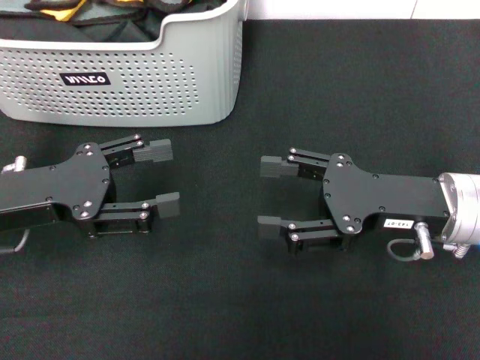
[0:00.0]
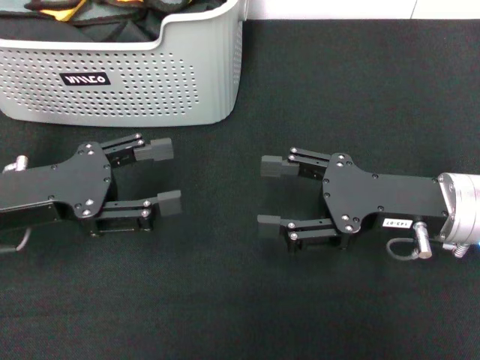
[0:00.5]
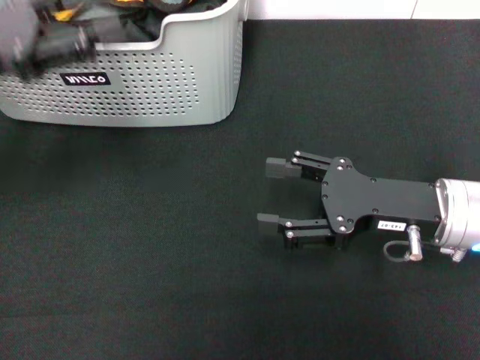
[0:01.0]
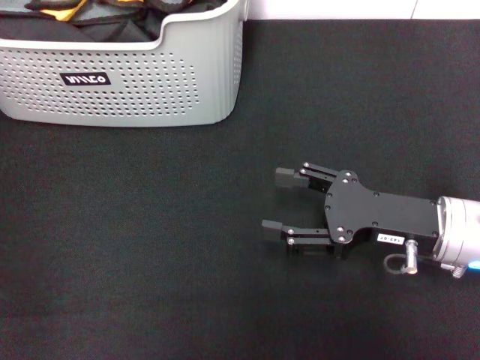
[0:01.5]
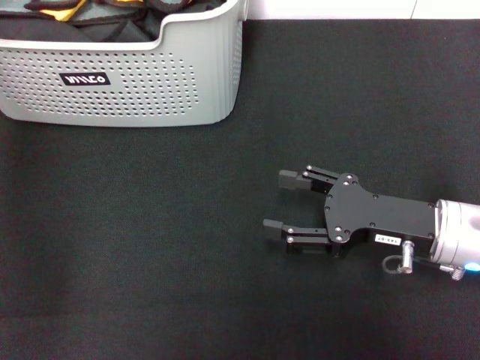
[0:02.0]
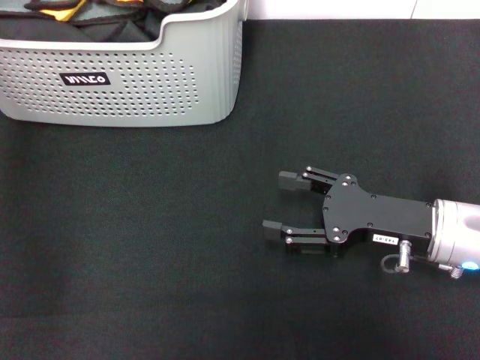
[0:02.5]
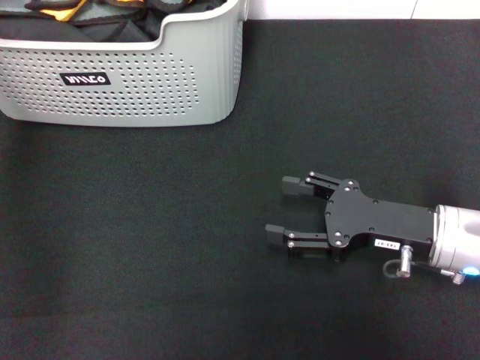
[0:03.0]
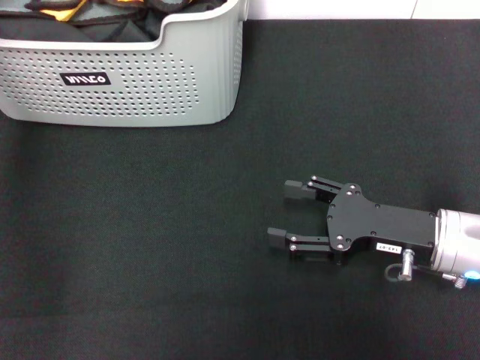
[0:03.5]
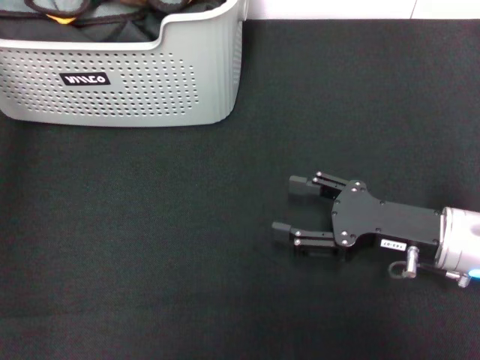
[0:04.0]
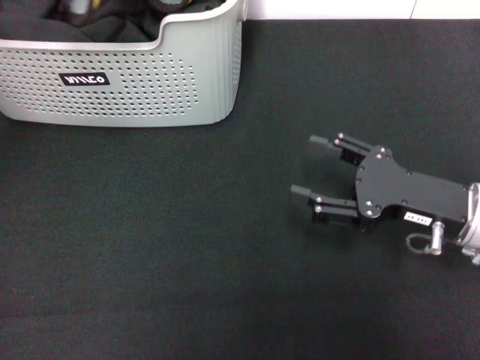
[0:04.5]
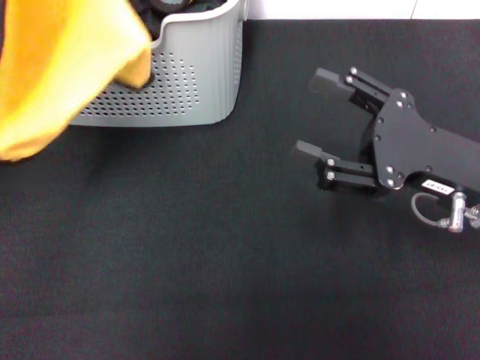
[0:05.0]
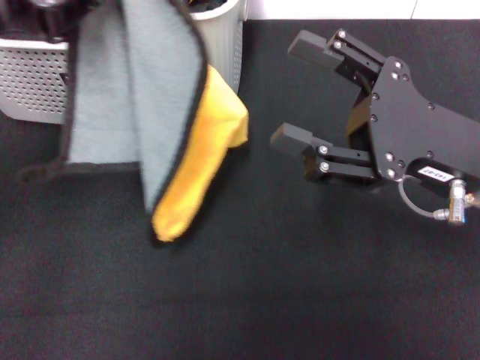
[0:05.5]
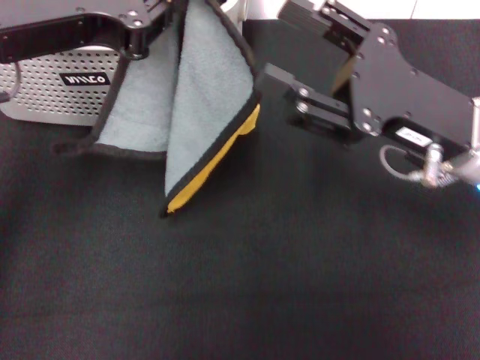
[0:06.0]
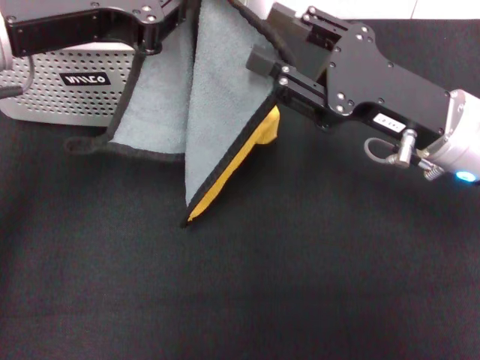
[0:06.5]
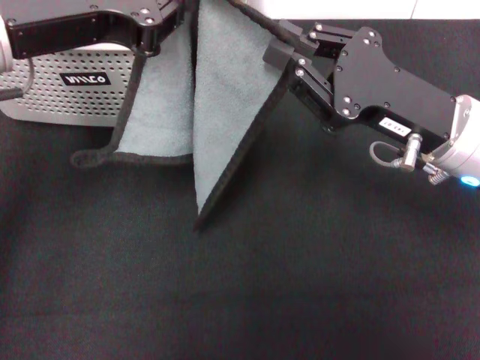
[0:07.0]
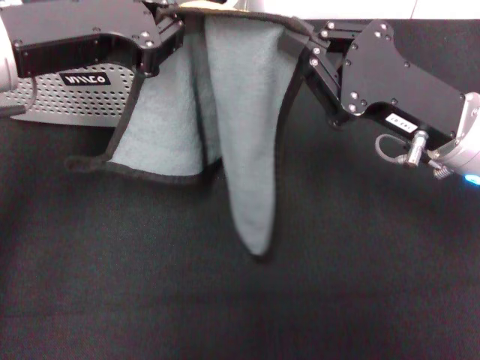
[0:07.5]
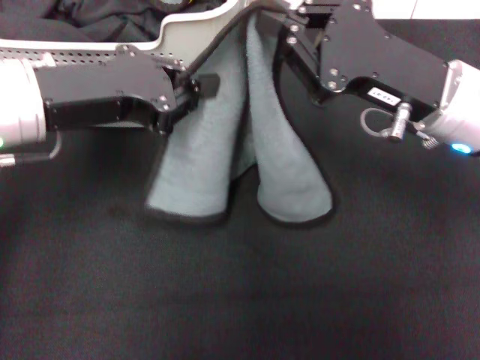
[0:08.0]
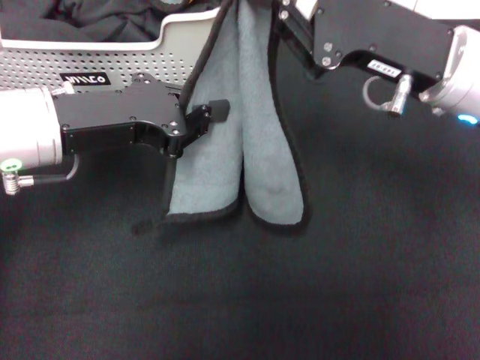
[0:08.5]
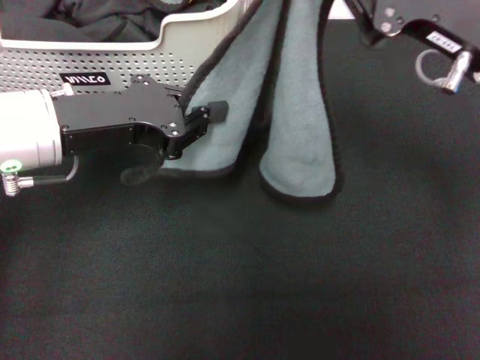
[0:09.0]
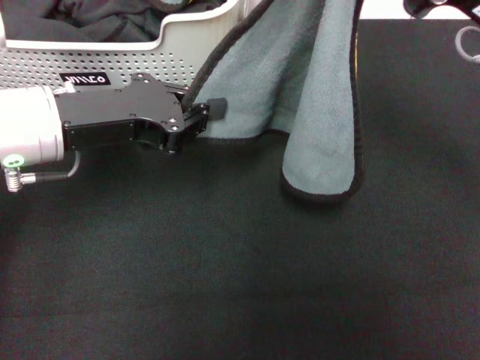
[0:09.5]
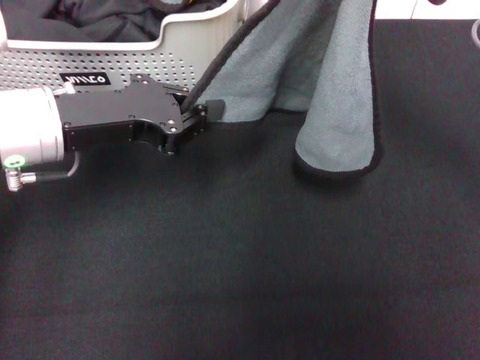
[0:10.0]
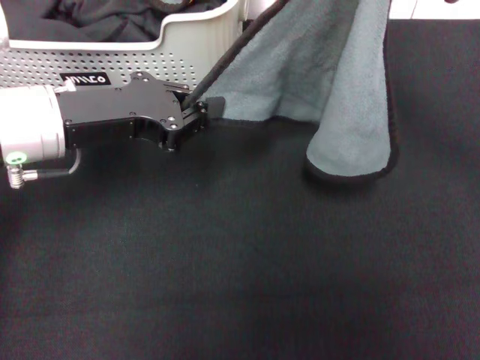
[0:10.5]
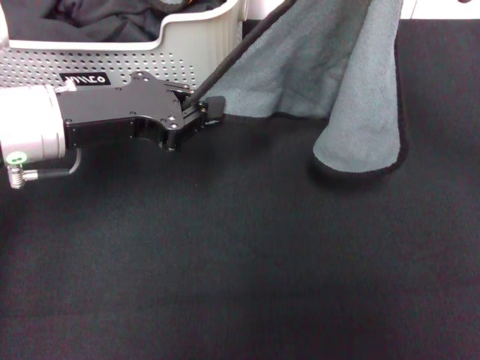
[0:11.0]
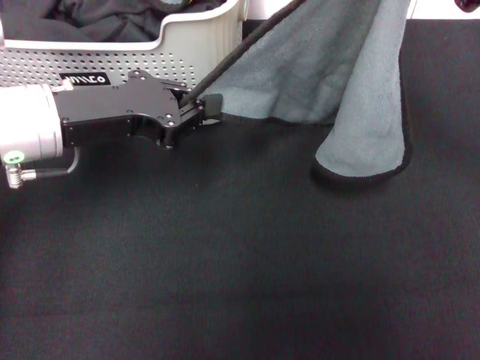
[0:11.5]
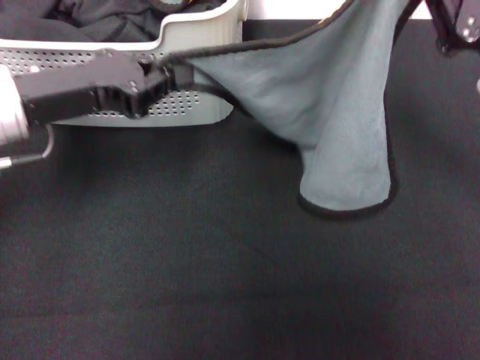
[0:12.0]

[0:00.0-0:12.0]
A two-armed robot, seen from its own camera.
Task of the whole recording: pick up the towel from the storage box and lay it flat on the black tablecloth.
Step, 0:00.0 to 0:03.5: Pick up a towel with the left gripper.
Step, 0:04.0 to 0:07.0: Spread the towel flat with the left gripper.
0:00.0 to 0:02.0: The left gripper goes roughly 25 cm forward and upward.
0:02.0 to 0:04.0: The left gripper changes place by roughly 5 cm, and closes its fingers.
0:04.0 to 0:06.0: The left gripper shifts about 15 cm backward and to the right; the right gripper is displaced upward by some 10 cm.
0:06.0 to 0:08.0: The left gripper travels downward by about 5 cm; the right gripper closes up.
0:08.0 to 0:10.0: The right gripper goes about 10 cm to the right and upward.
0:10.0 to 0:12.0: The right gripper moves about 5 cm.

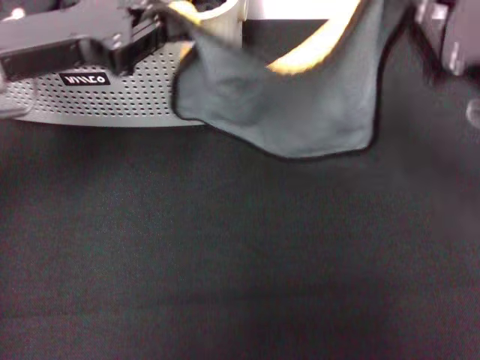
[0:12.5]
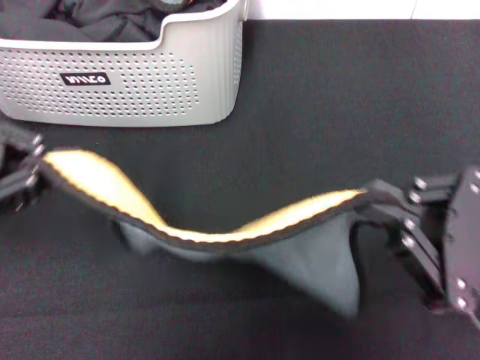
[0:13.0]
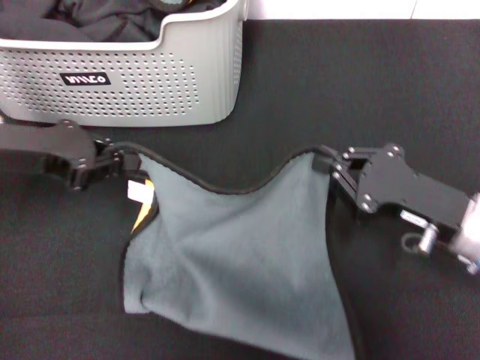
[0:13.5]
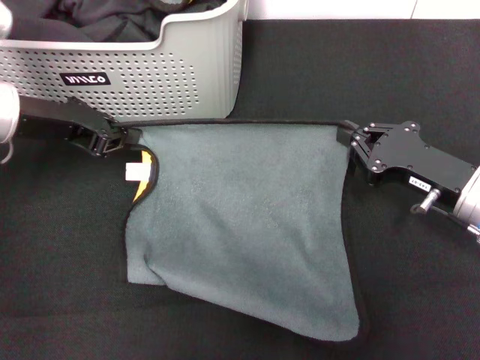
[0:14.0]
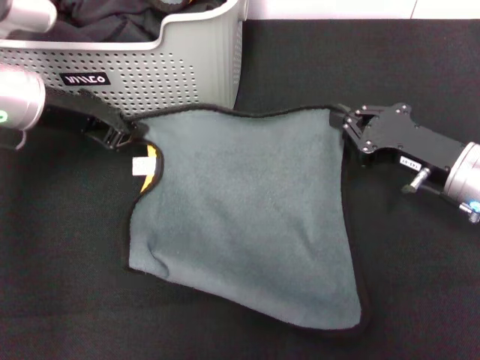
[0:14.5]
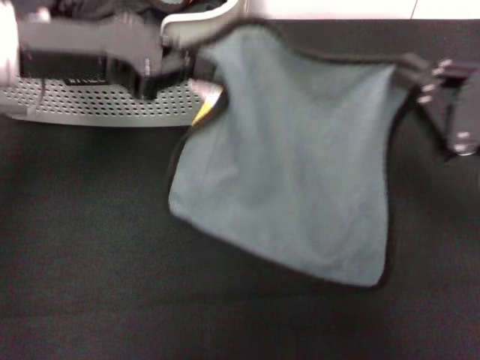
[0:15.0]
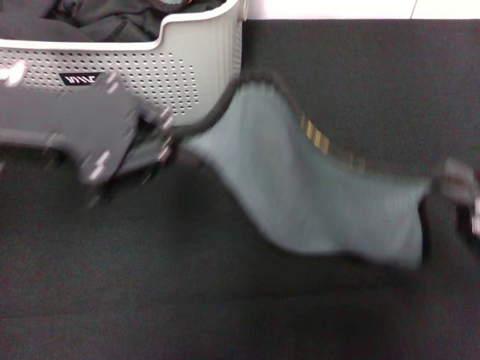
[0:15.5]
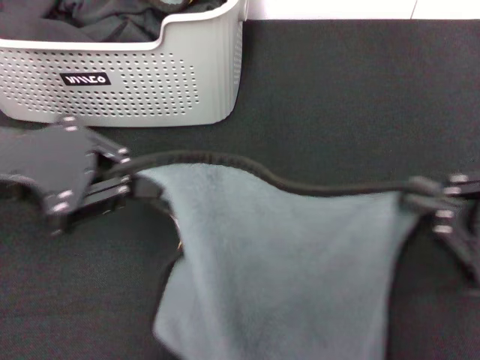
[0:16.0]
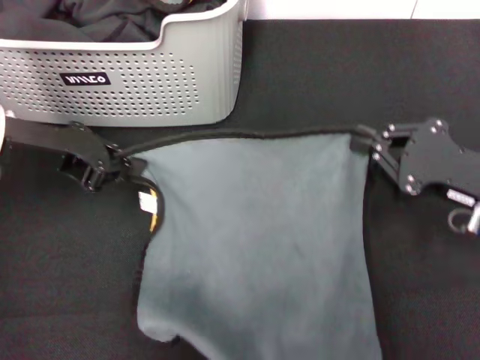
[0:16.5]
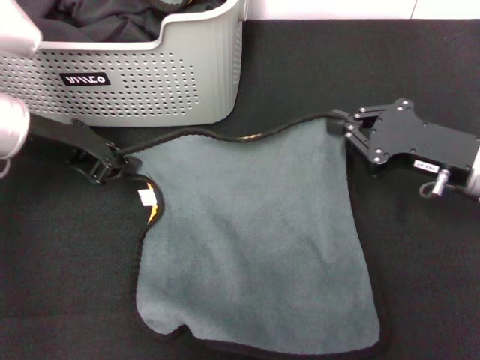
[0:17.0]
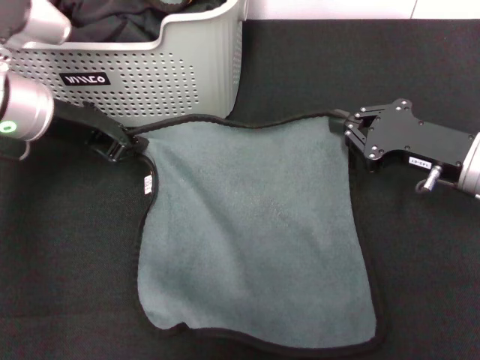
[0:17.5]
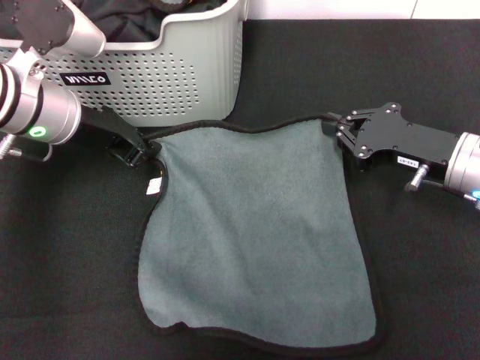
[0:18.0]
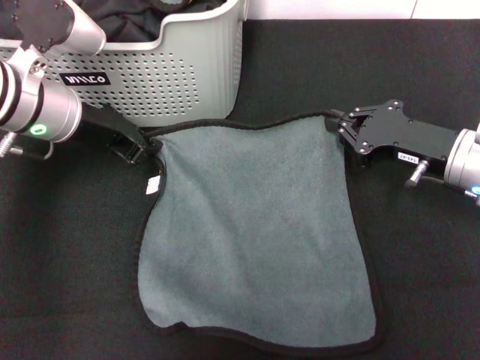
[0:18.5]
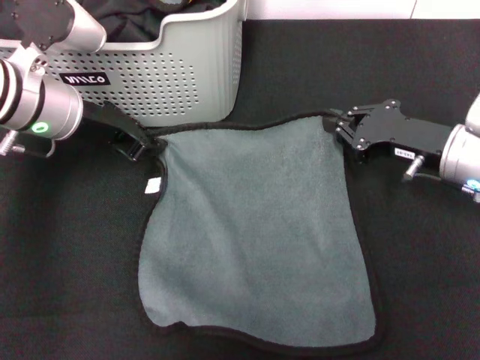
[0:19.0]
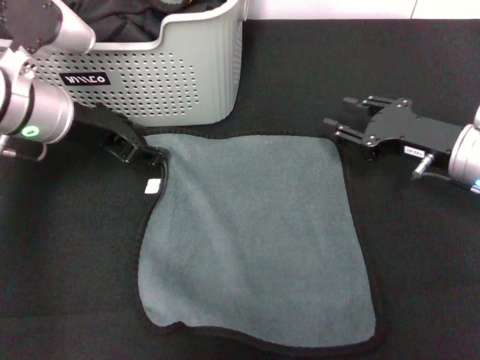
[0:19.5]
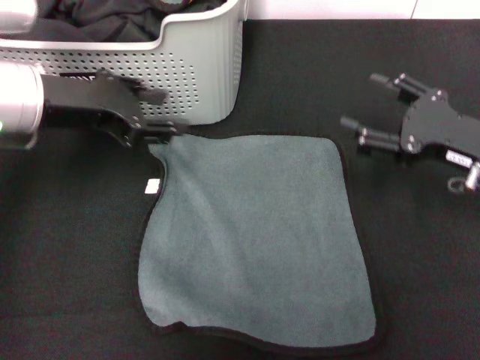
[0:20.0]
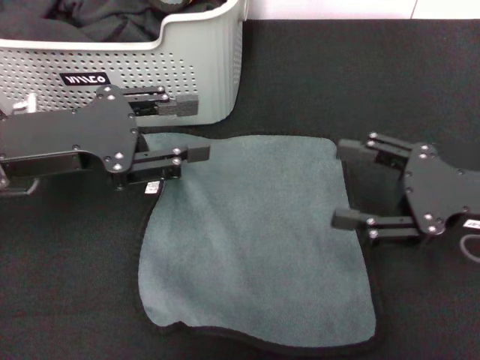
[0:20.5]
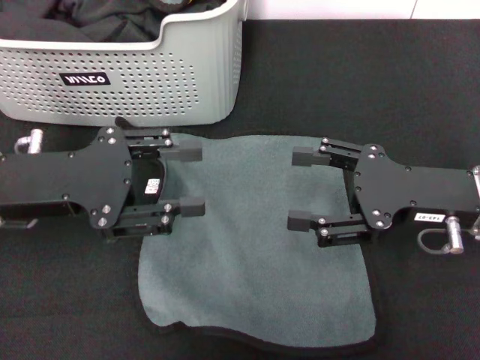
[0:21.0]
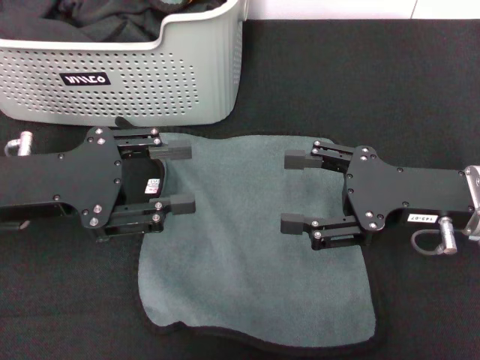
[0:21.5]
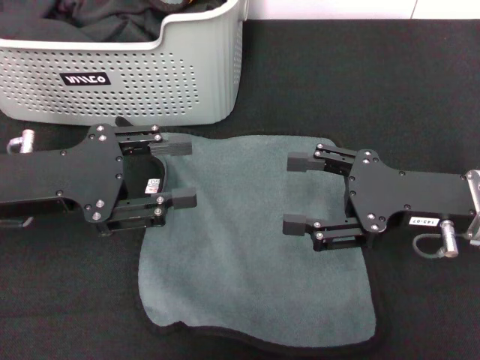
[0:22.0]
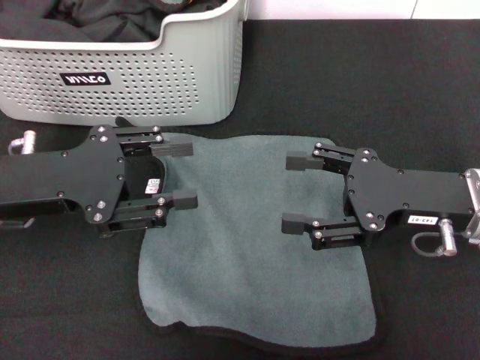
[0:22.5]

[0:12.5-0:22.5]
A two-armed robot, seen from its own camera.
Task of the whole recording: pick up the towel from the storage box and lay it flat on the black tablecloth.
Step, 0:12.5 to 0:19.5: Spread the towel flat with the right gripper.
0:12.5 to 0:14.5: The right gripper is displaced downward by some 10 cm, and travels backward and back again, some 10 cm each way. The left gripper is displaced downward by approximately 5 cm.
0:14.5 to 0:16.5: The left gripper travels backward by roughly 5 cm.
0:16.5 to 0:18.5: Both grippers travel together forward, approximately 5 cm.
0:18.5 to 0:20.5: The two grippers go roughly 10 cm backward. The right gripper opens its fingers. The left gripper opens its fingers.
0:20.5 to 0:22.5: The grippers move only a little.

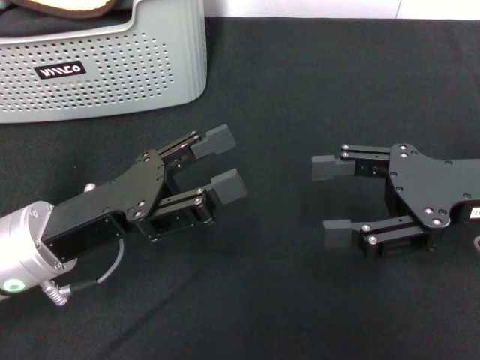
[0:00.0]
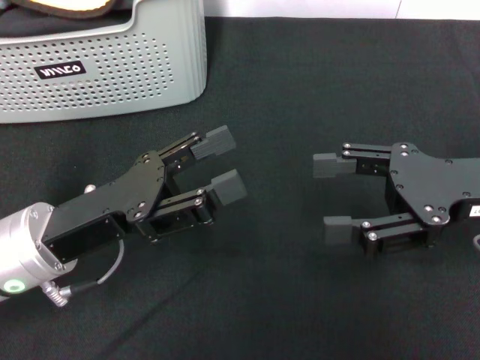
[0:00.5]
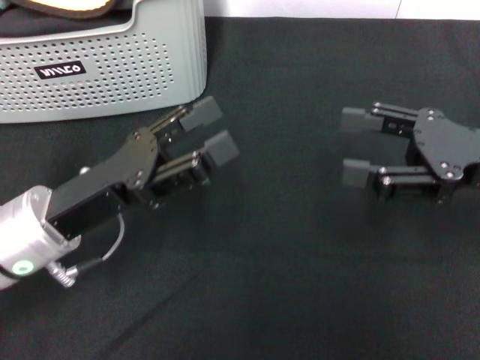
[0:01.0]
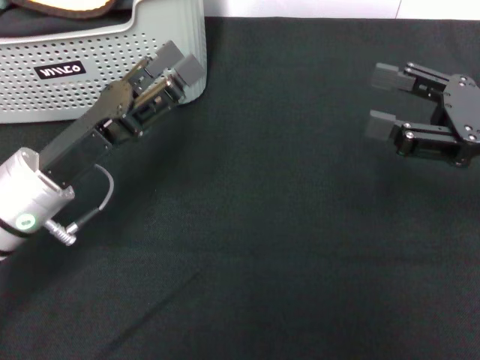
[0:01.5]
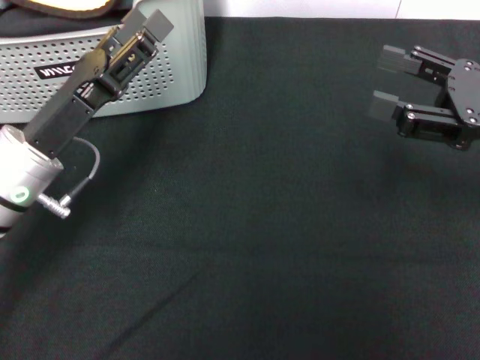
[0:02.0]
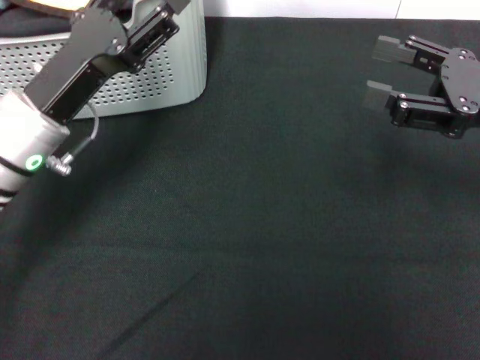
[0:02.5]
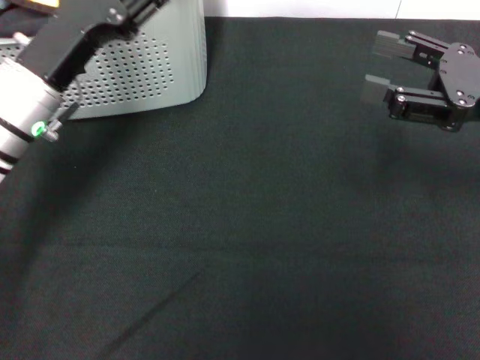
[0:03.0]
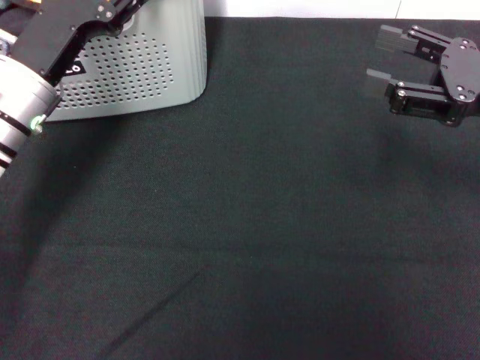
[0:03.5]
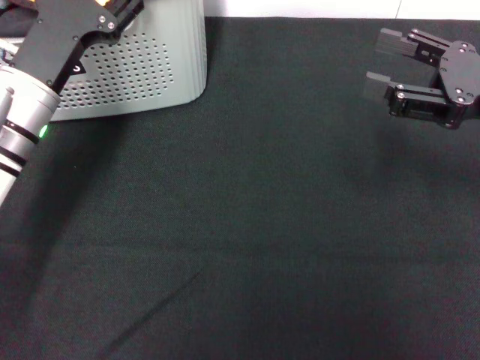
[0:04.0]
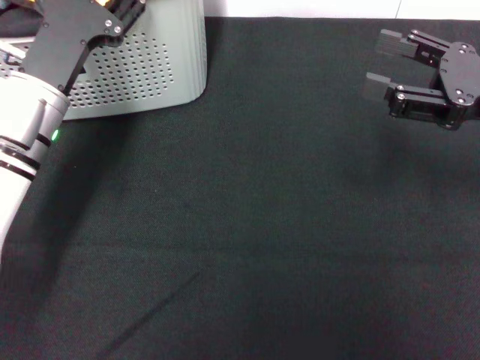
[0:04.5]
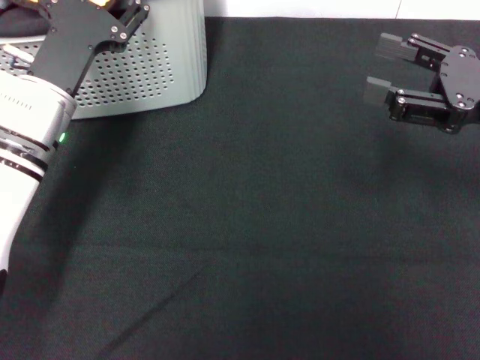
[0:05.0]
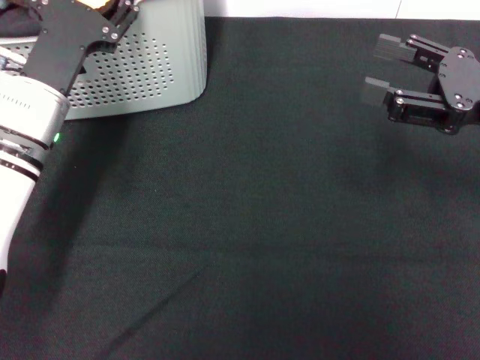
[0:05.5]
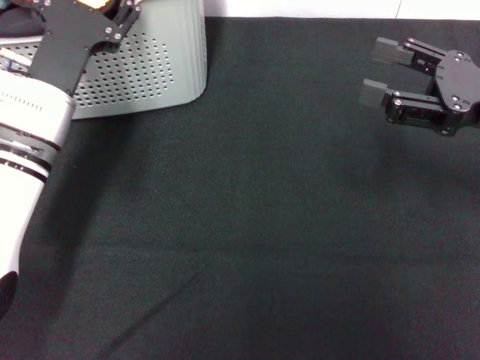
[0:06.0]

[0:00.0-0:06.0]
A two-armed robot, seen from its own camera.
Task of the whole recording: pick up the towel from the storage box and lay it flat on the black tablecloth.
0:00.0 to 0:02.0: The left gripper heads forward, covering roughly 5 cm.
0:02.0 to 0:04.0: The left gripper is displaced forward by approximately 5 cm.
0:04.0 to 0:06.0: The grippers stay close to where they were, moving slightly.
